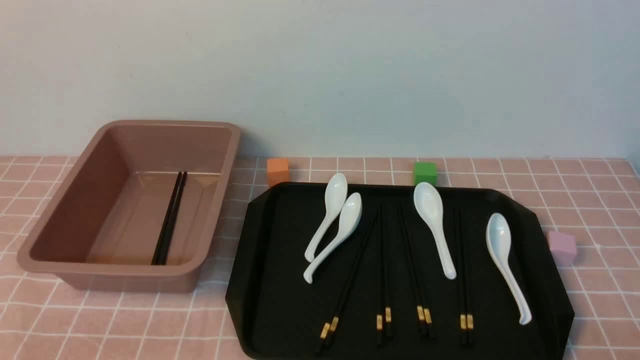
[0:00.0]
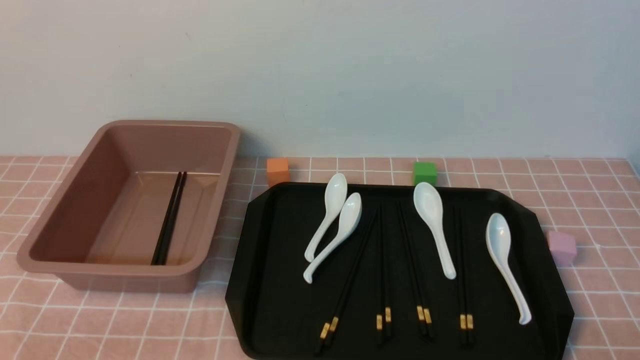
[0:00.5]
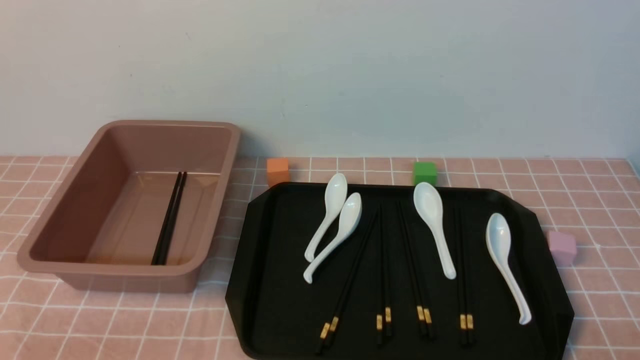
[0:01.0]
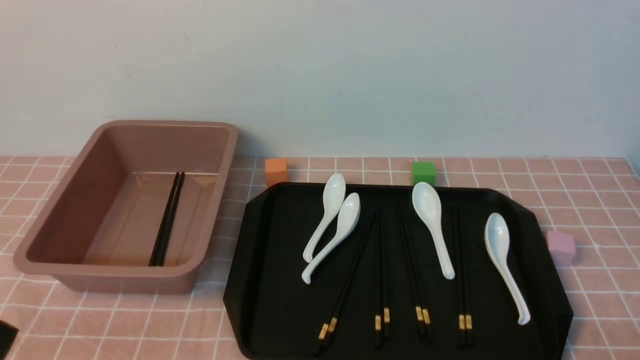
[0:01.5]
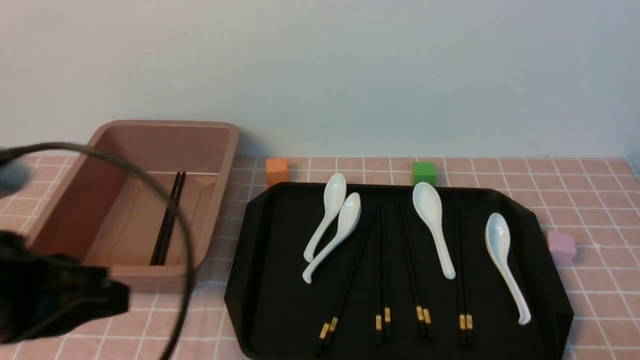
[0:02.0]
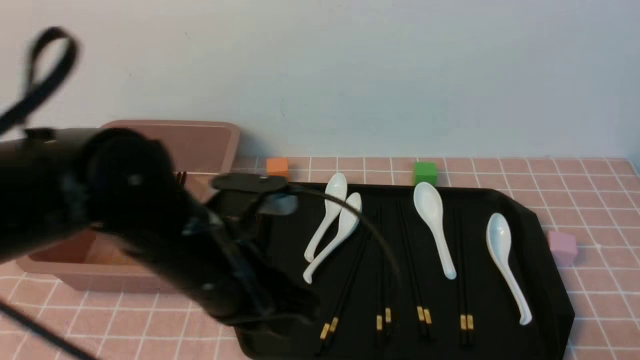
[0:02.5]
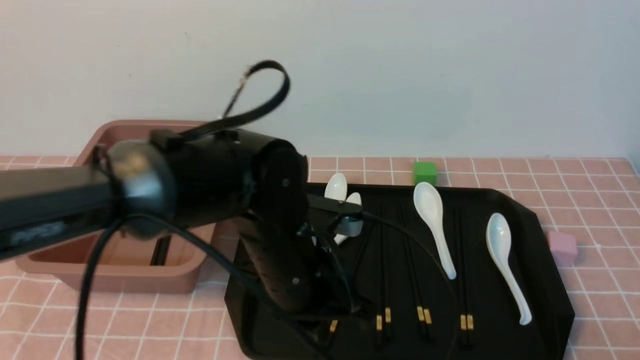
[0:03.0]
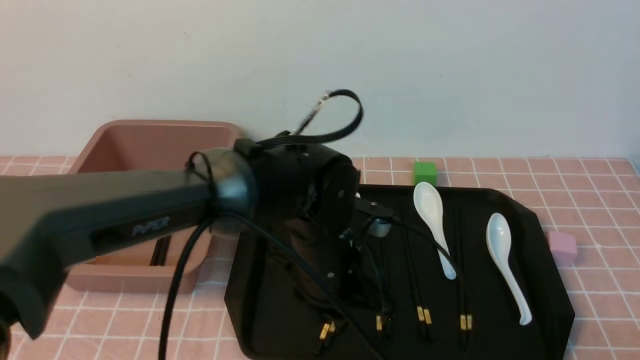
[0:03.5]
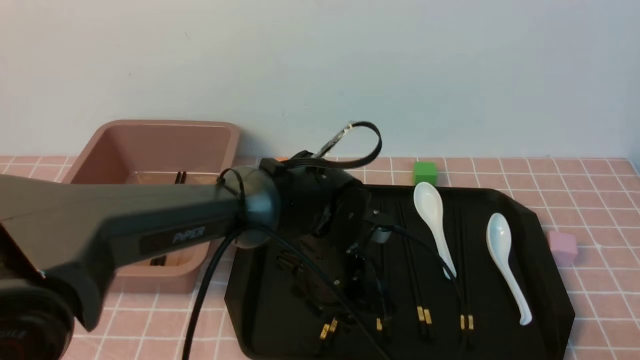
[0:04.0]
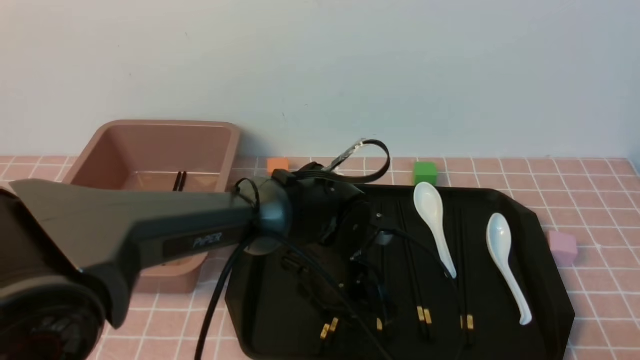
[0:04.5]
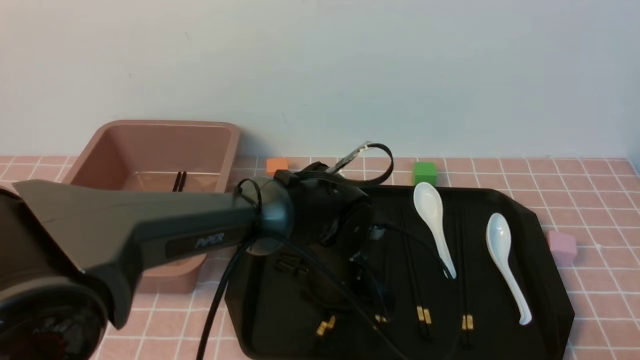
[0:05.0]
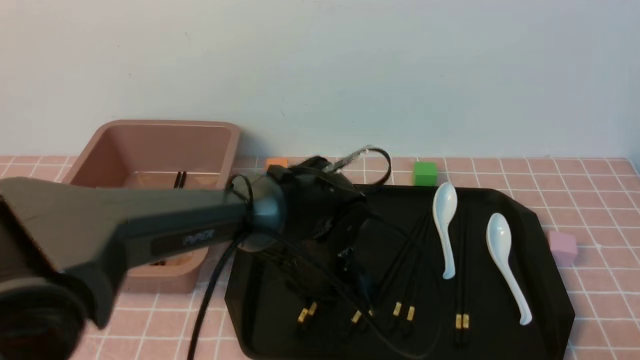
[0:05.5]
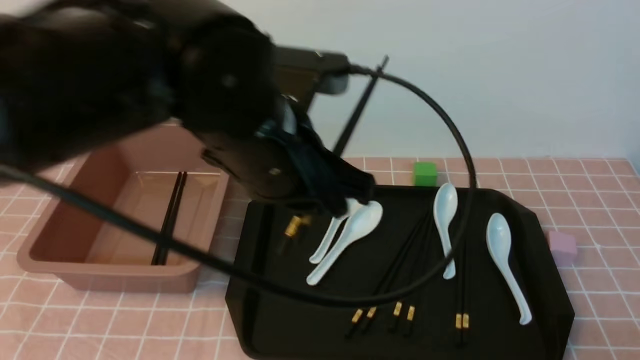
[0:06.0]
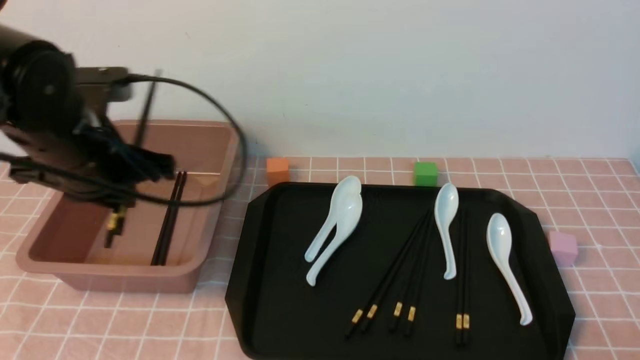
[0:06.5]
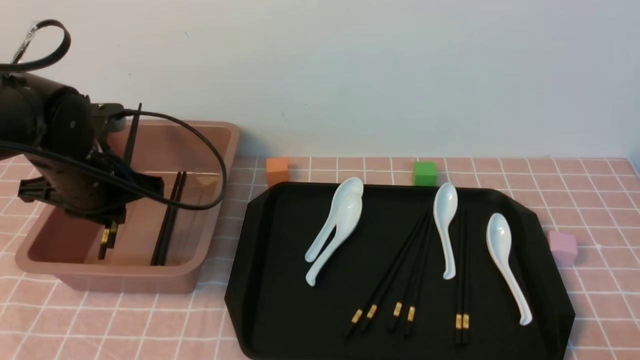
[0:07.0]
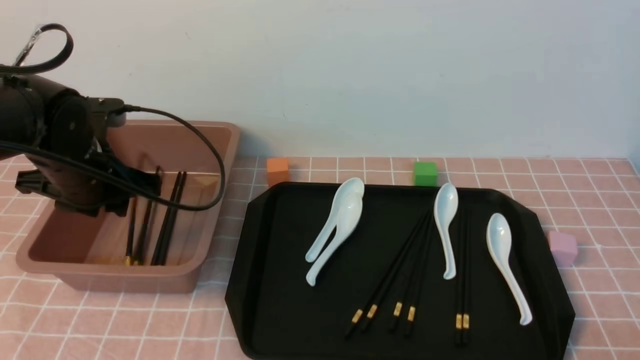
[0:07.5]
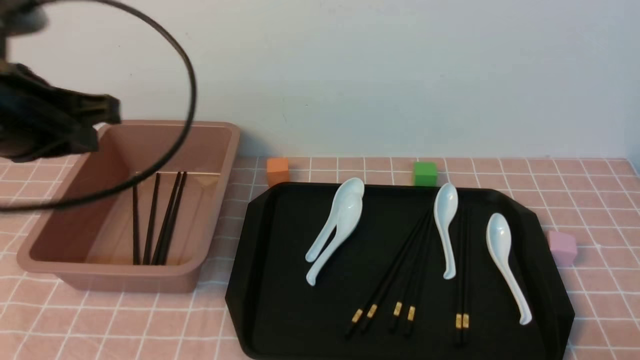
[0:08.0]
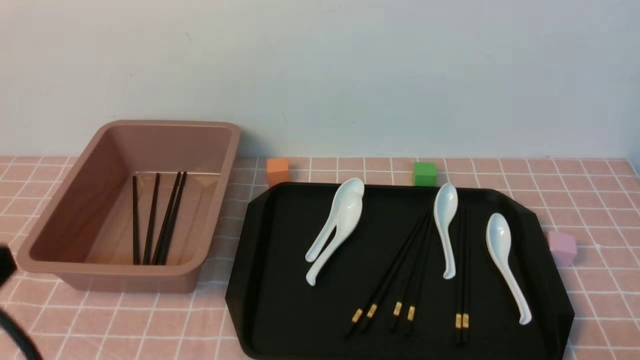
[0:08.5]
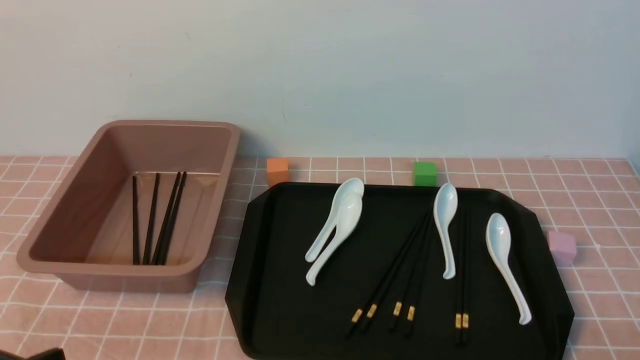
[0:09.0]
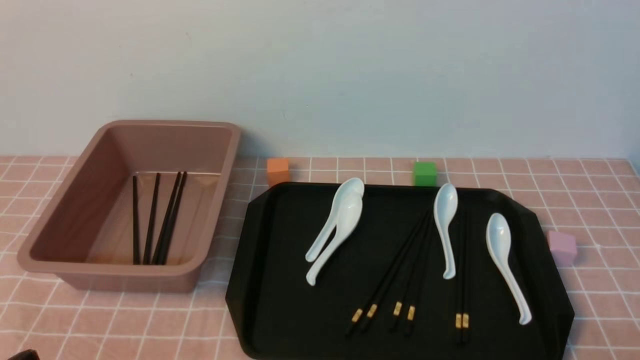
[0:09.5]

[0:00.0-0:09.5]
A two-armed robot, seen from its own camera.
Step, 0:00.0 to 0:05.5: use the left arm to grab a pair of chopsticks.
Step, 0:06.0 to 0:07.5: use the left arm to put the chopsticks into the lunch box.
0:00.0 to 0:02.0: The left gripper travels upward and forward by approximately 15 cm.
0:02.0 to 0:04.0: The left gripper moves to the right, forward and downward, about 30 cm, and opens.
0:04.0 to 0:05.5: The left gripper closes up.
0:05.5 to 0:07.5: The left gripper heads to the left, covering about 25 cm, and opens.
0:07.5 to 0:09.5: The left gripper is displaced backward by approximately 30 cm, and closes.

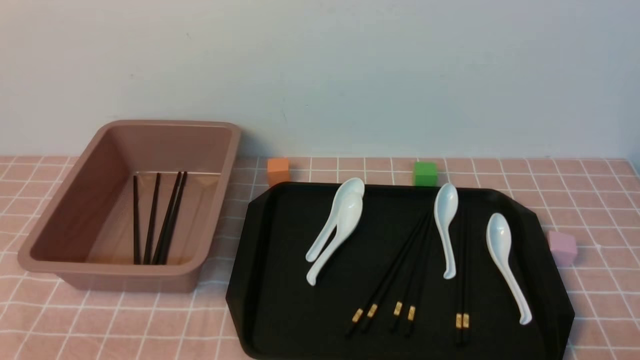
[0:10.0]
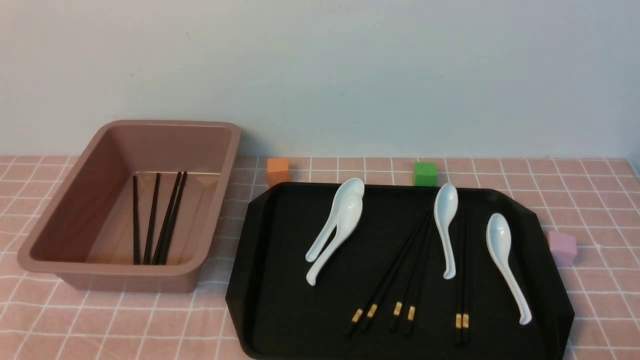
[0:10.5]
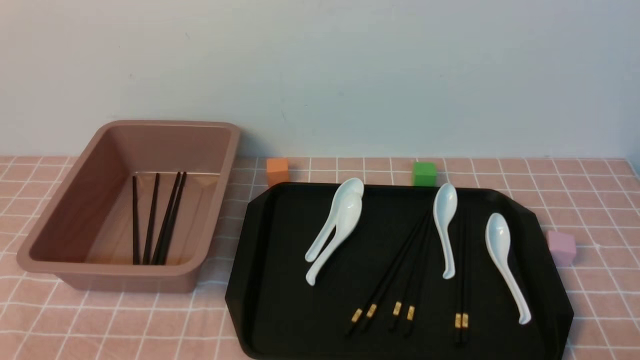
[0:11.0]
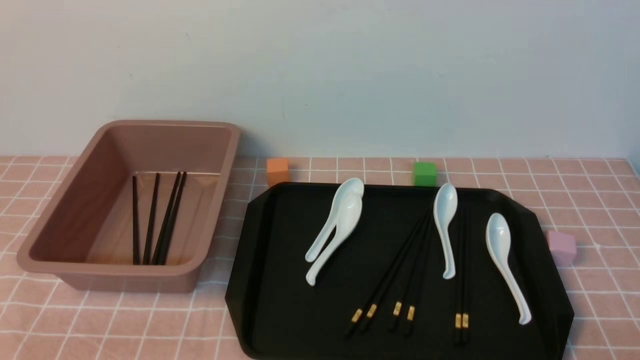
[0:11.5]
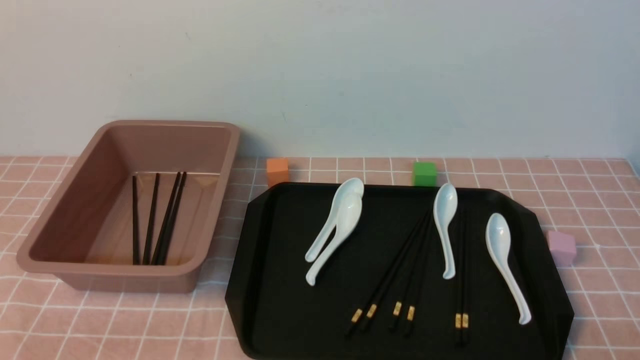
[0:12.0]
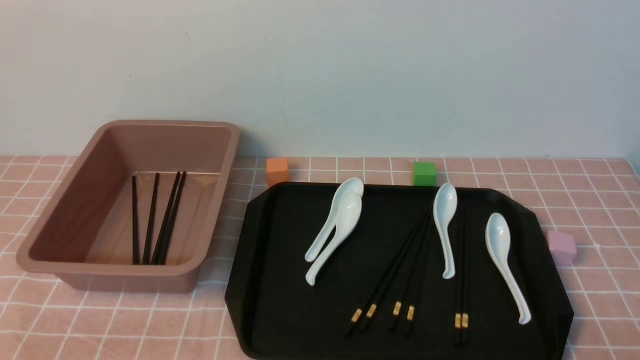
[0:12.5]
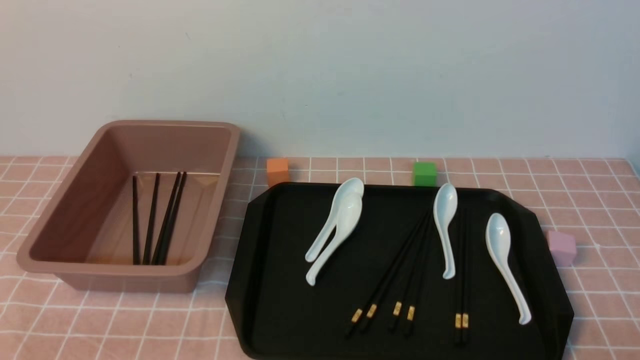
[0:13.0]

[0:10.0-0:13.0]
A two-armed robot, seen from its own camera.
0:11.5 to 0:13.0: Neither gripper changes place.
